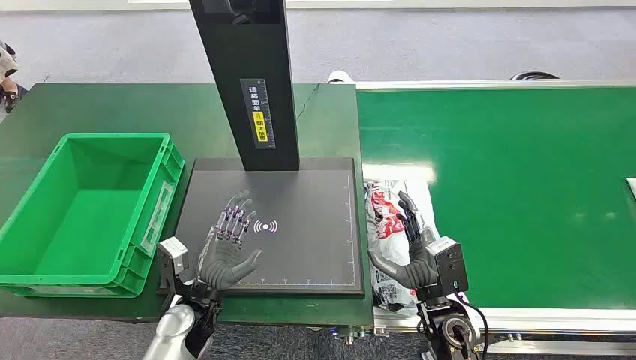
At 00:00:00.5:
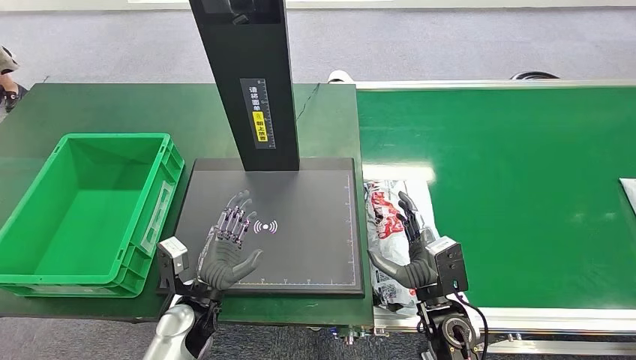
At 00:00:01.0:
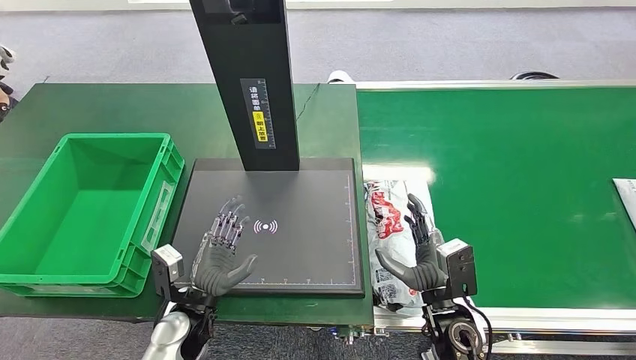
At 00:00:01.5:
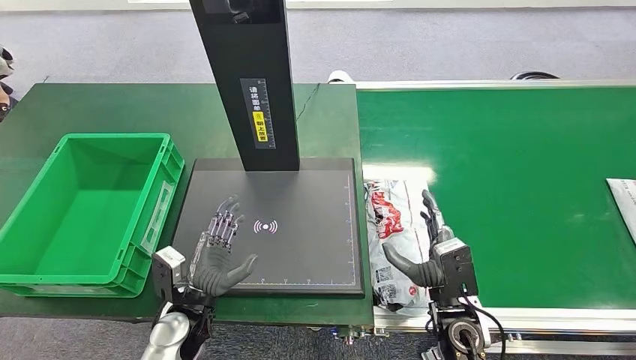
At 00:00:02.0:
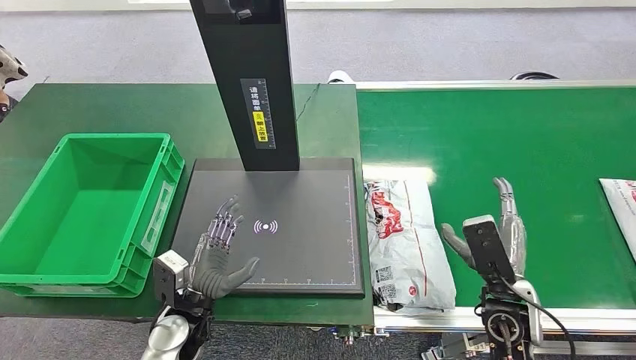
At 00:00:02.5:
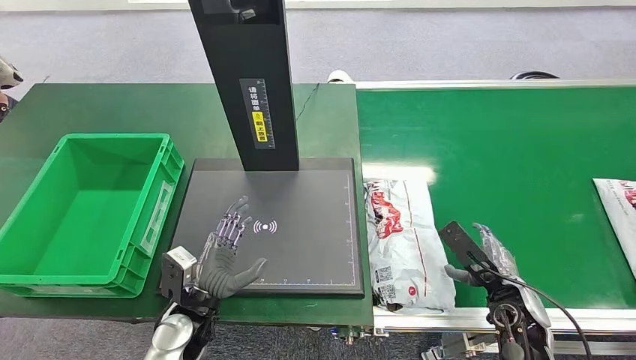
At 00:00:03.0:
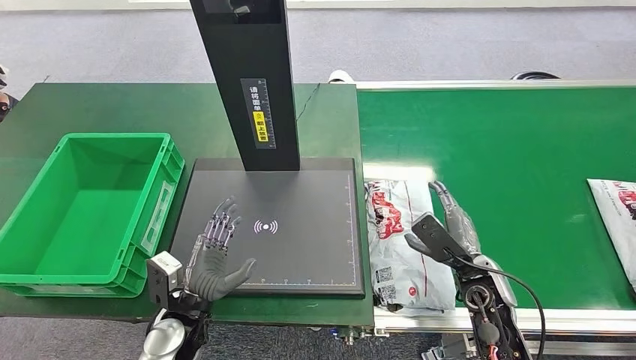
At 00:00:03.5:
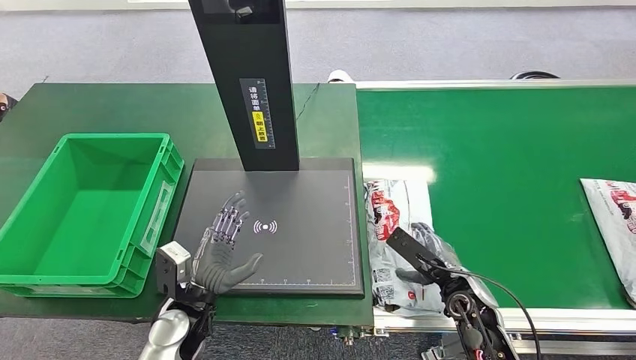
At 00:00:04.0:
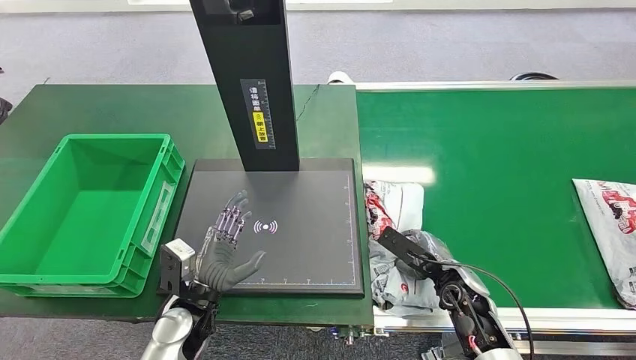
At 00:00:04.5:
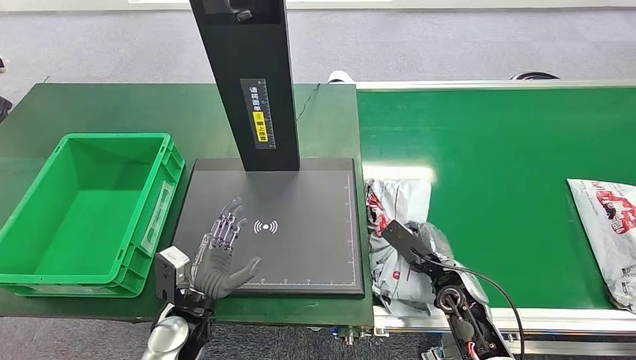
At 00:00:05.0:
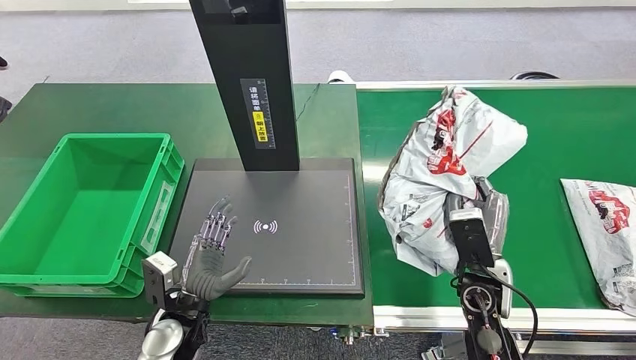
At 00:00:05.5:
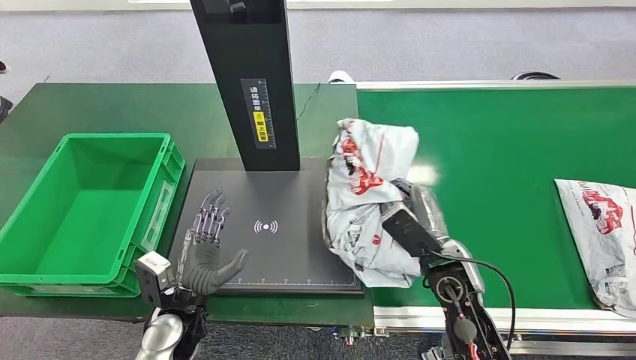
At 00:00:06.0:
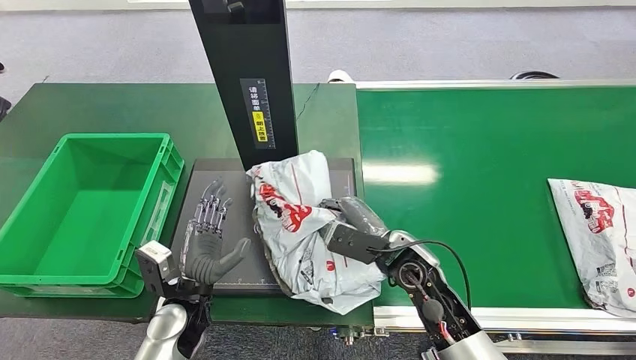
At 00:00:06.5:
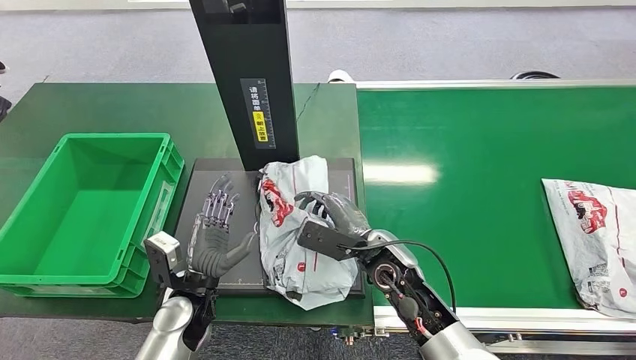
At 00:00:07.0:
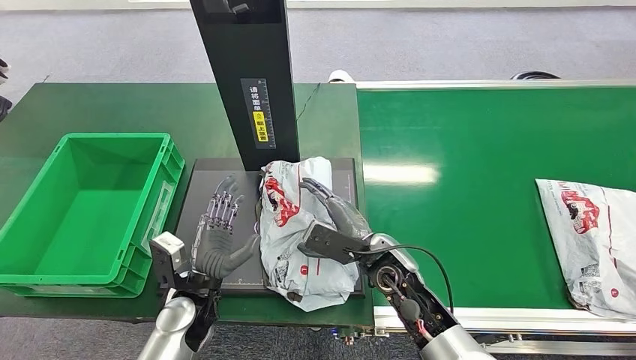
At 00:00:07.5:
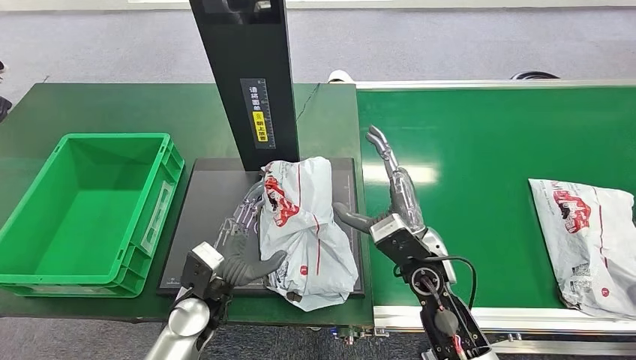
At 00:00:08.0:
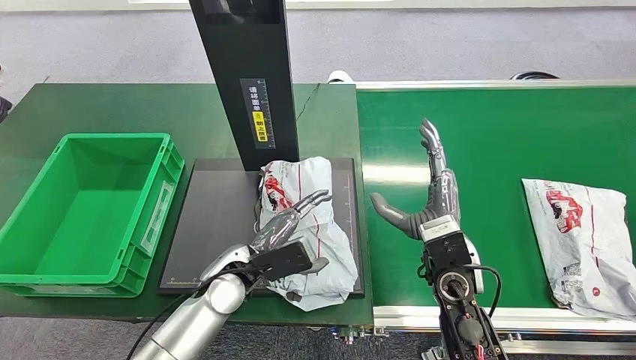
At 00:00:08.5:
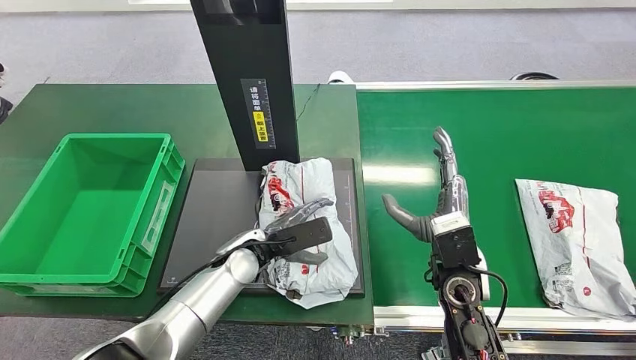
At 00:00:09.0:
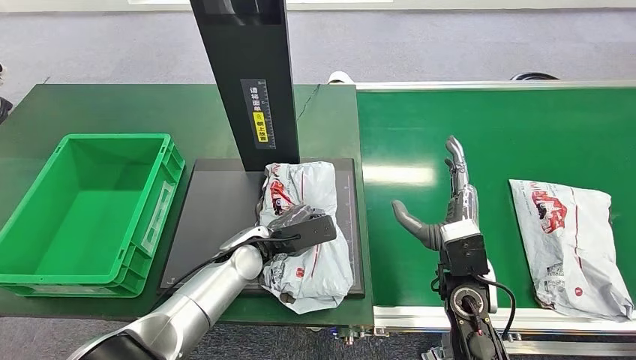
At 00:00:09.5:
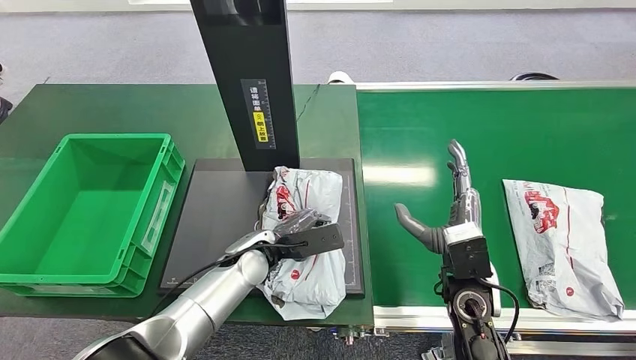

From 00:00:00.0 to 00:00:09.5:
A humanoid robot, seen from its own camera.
Step, from 00:00:00.0 to 00:00:05.0: Pick up the package from the conveyor belt.
Step, from 00:00:05.5 to 00:00:07.5: Place the package onto the inbound machine.
From 00:00:02.0 to 00:00:04.0: The right hand heads downward, covering about 5 cm.
From 00:00:04.0 to 00:00:05.5: The right hand moves upward and to the left, roughly 10 cm.

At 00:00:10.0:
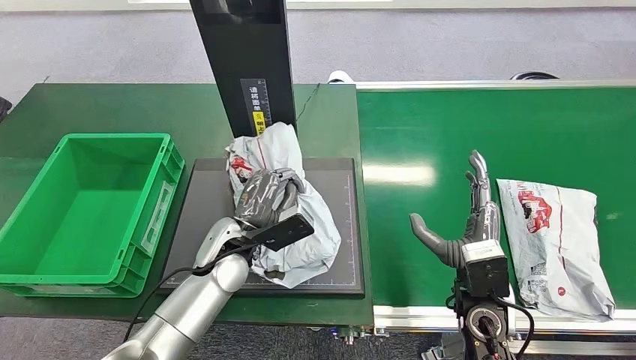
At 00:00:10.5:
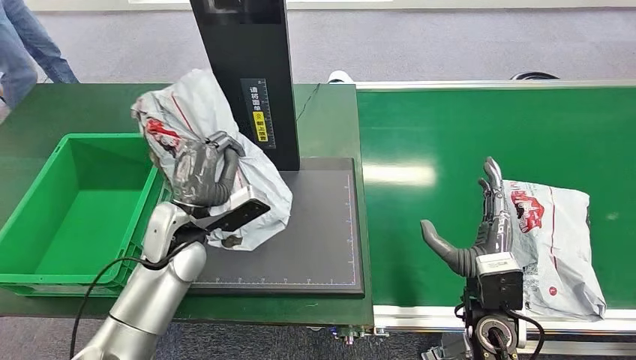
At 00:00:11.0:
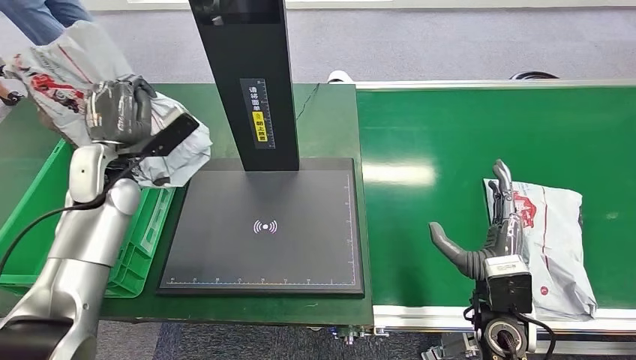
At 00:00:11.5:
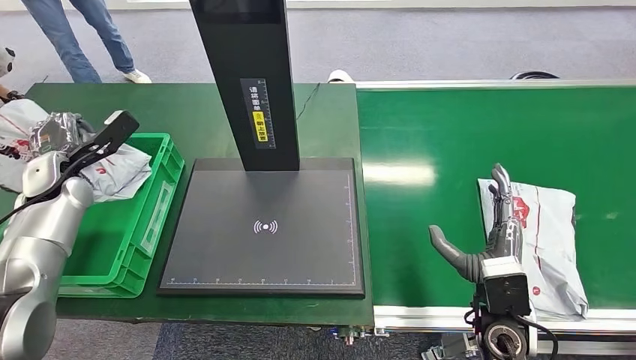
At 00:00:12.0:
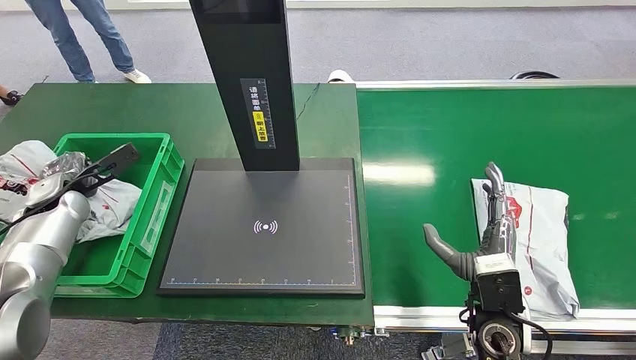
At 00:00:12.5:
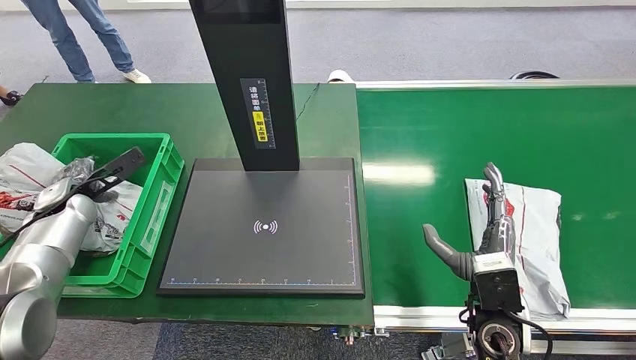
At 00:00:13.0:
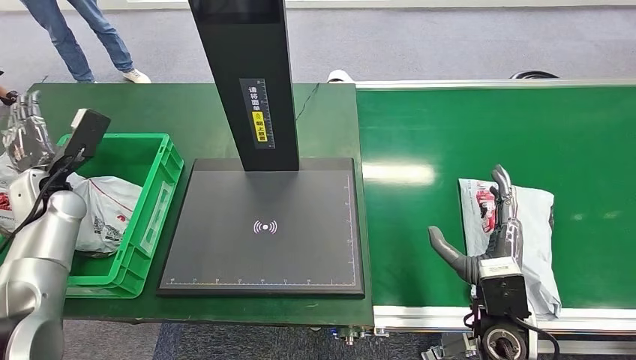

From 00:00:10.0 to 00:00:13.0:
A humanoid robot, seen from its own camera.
Step, from 00:00:11.0 to 00:00:13.0: Place the package into the parcel locker.
